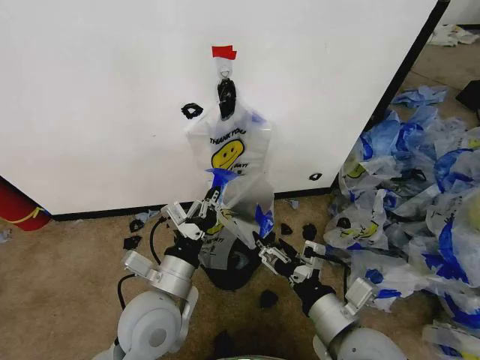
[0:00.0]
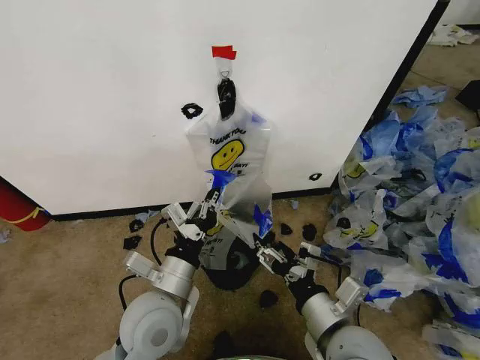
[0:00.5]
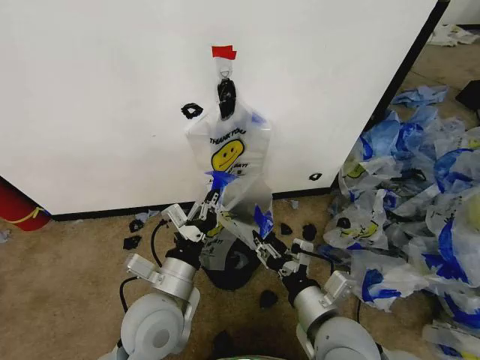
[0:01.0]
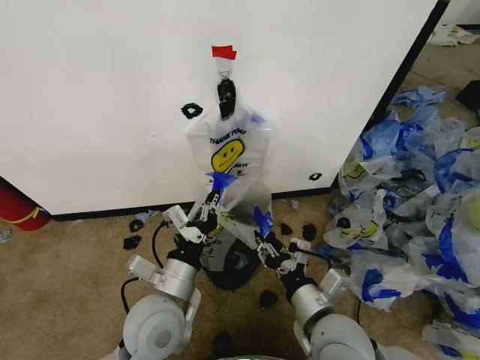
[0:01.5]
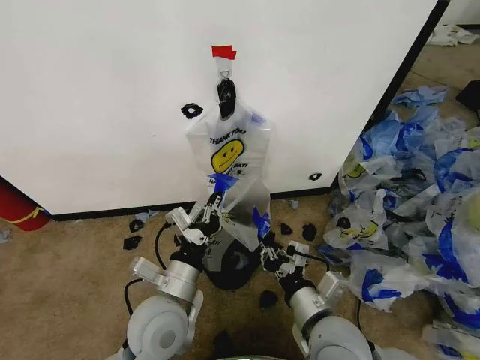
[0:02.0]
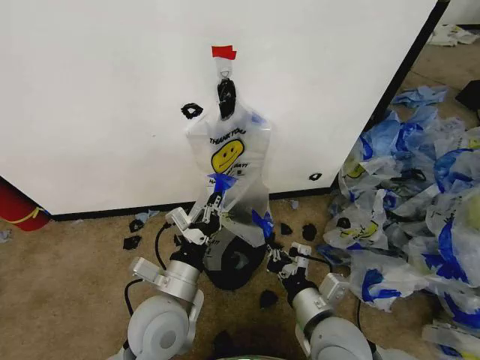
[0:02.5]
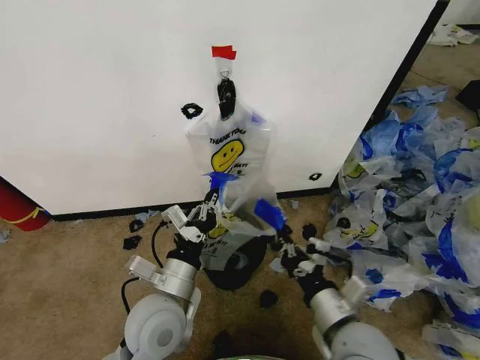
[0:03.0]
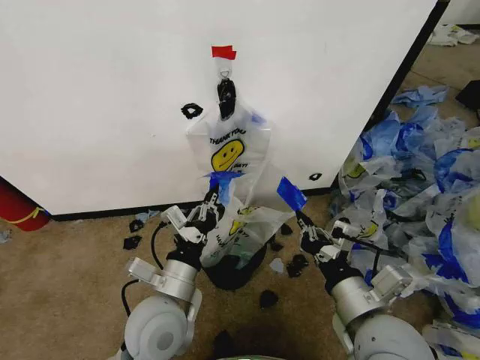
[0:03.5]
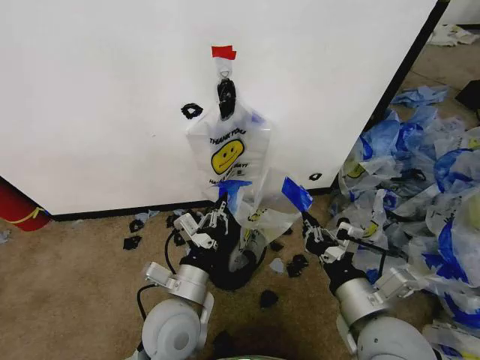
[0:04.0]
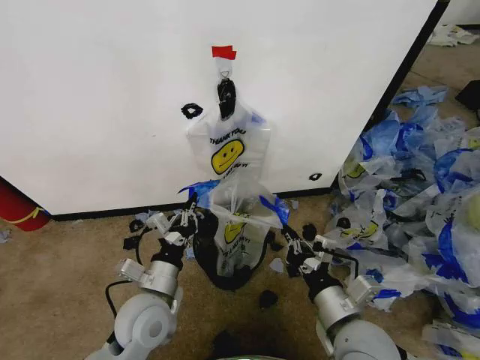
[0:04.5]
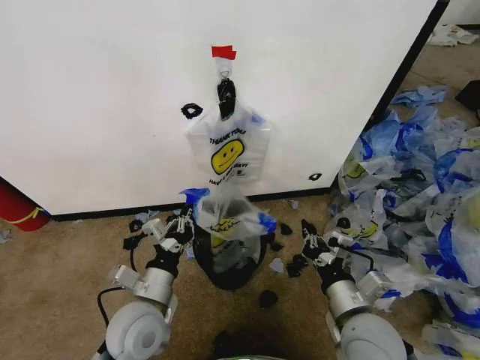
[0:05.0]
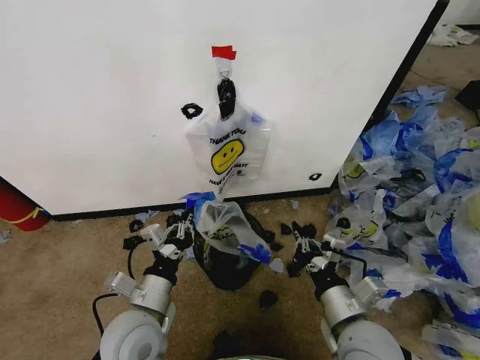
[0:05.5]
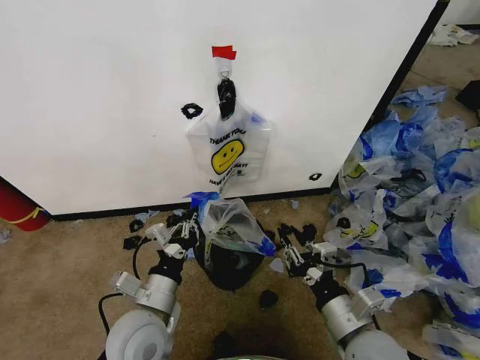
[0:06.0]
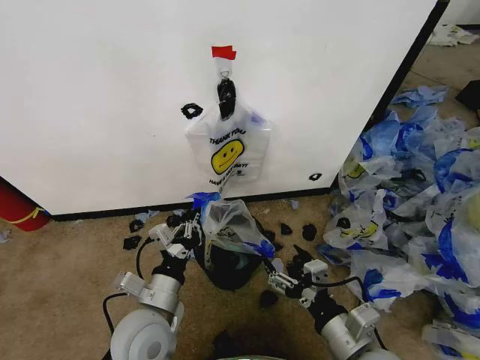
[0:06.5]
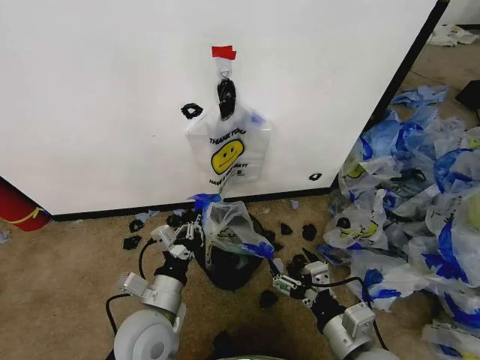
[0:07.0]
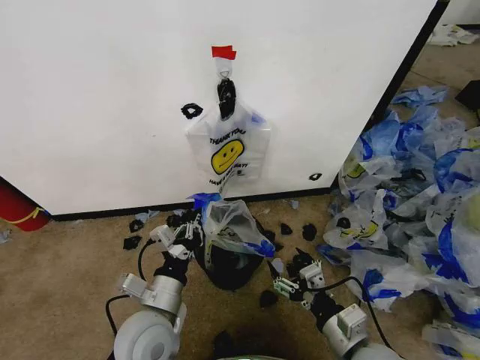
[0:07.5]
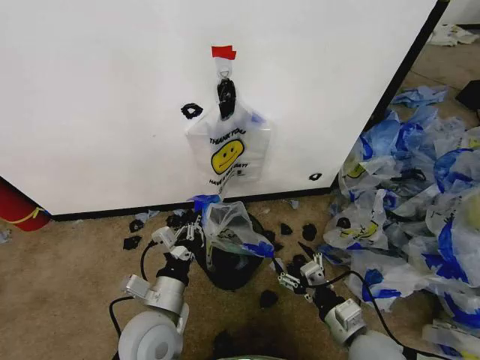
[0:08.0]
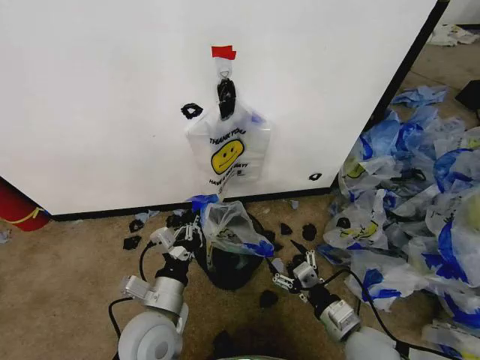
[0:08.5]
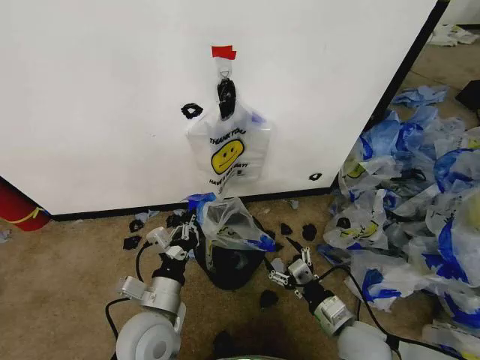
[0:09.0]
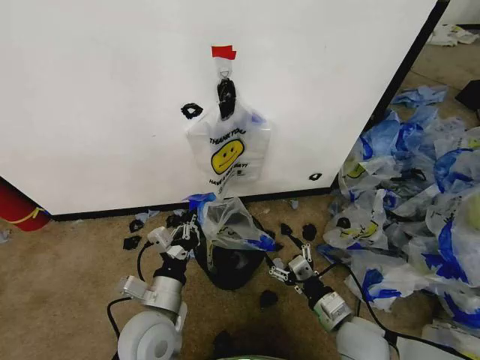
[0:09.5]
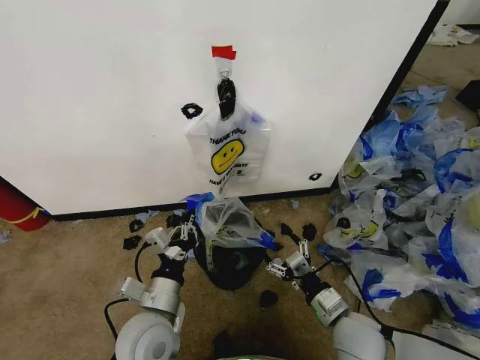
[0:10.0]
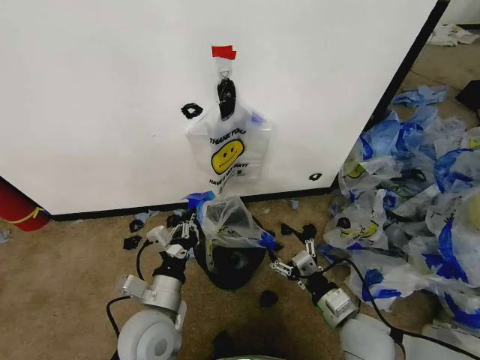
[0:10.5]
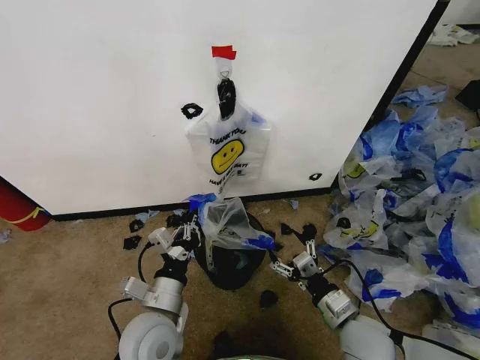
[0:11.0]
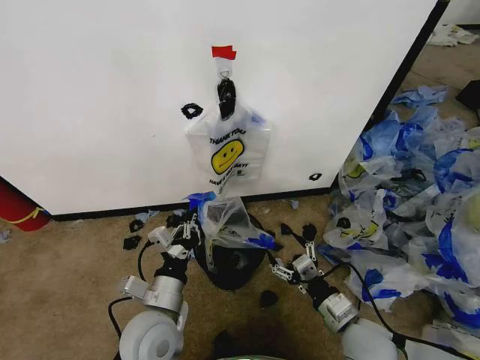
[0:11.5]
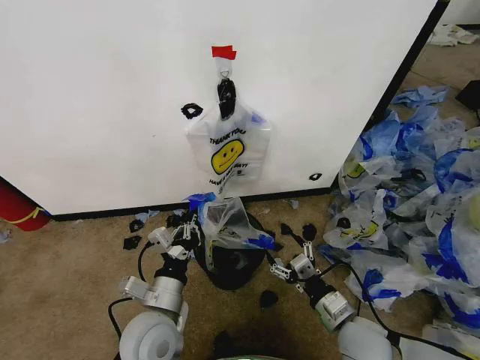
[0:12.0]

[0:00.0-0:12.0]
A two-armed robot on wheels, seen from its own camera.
Task of the whole recording: Pick up the garbage bag from the wall and place it over the trash bin.
0:00.0 to 0:02.0: The right gripper changes place by roughly 5 cm, and closes up.
0:02.0 to 0:04.0: The right gripper is displaced to the right and upward by roughly 10 cm.
0:04.0 to 0:06.0: The right gripper moves downward, approximately 5 cm; the left gripper is displaced to the left by some 5 cm.
0:06.0 to 0:08.0: The right gripper moves downward, roughly 5 cm, and opens up.
0:08.0 to 0:12.0: There are only small adjustments of the grippers.

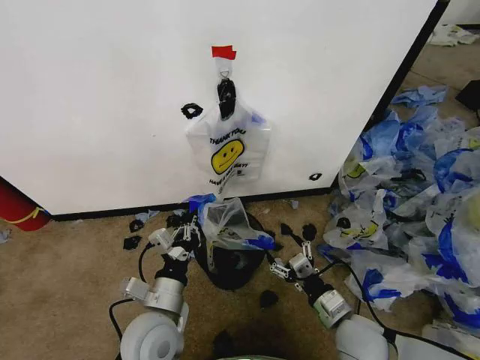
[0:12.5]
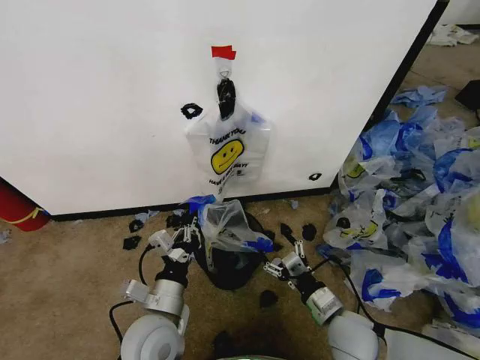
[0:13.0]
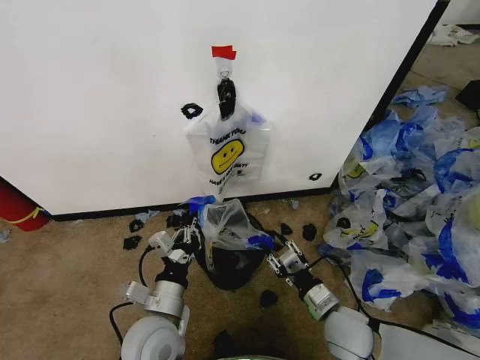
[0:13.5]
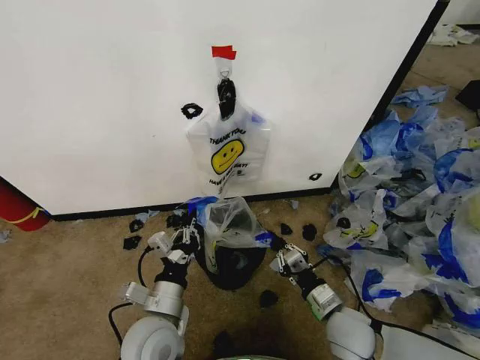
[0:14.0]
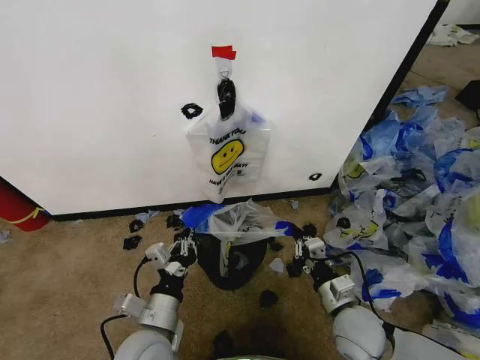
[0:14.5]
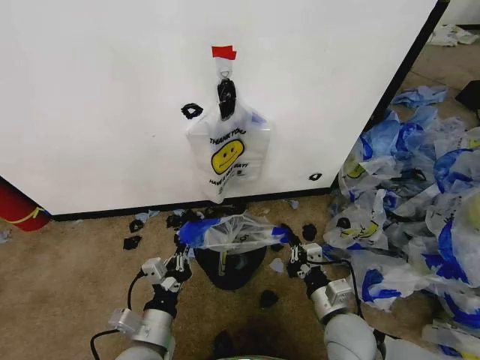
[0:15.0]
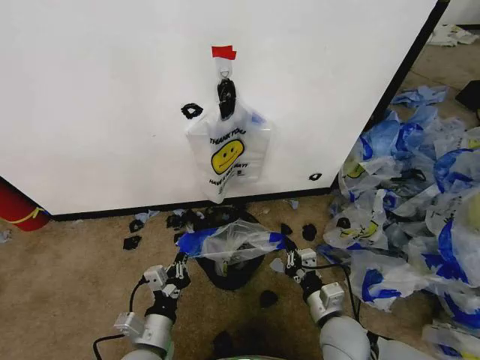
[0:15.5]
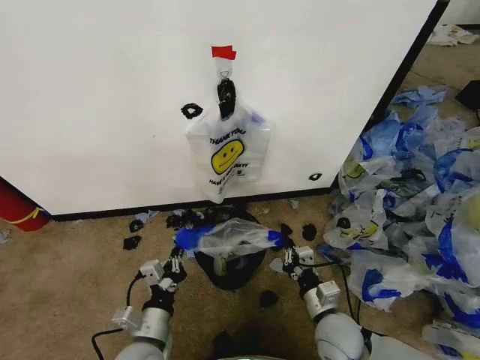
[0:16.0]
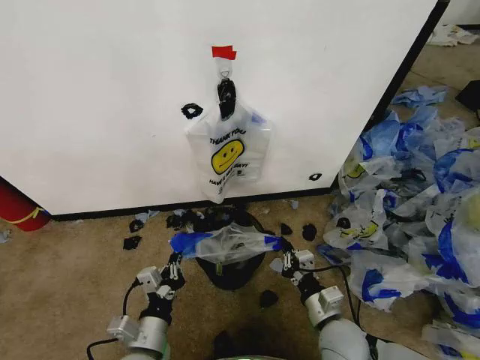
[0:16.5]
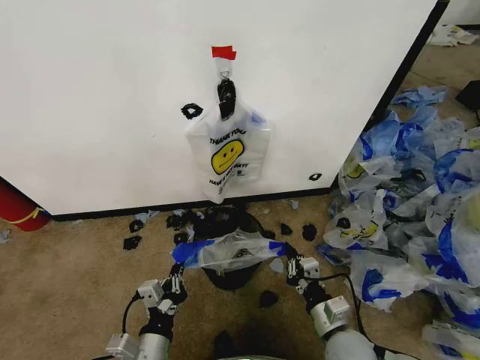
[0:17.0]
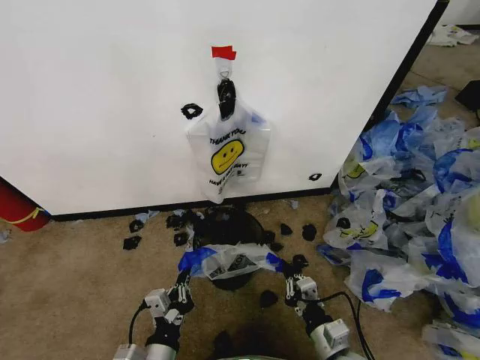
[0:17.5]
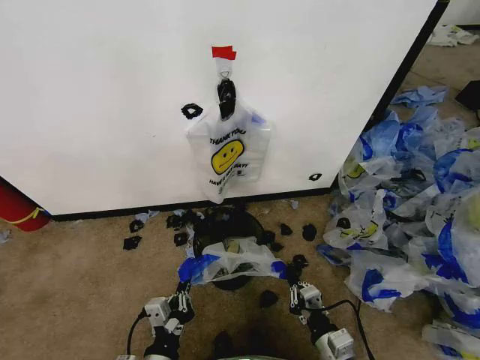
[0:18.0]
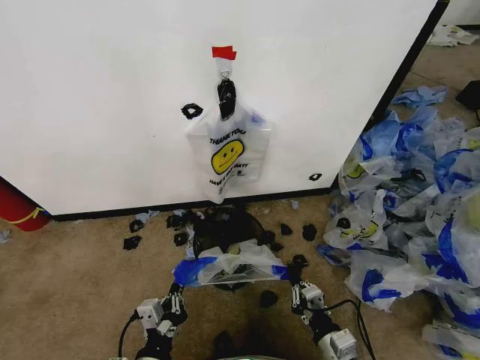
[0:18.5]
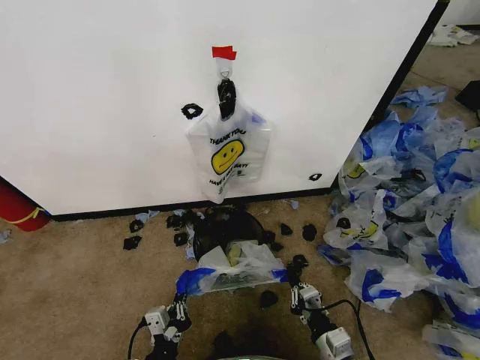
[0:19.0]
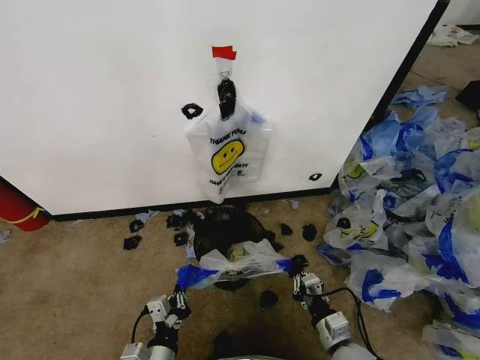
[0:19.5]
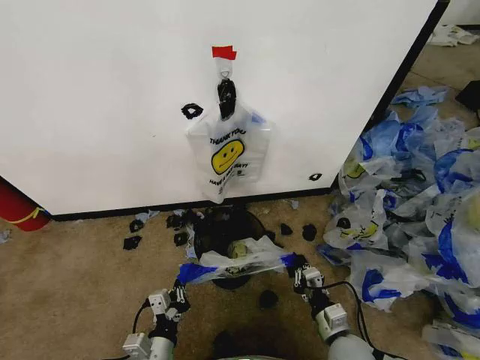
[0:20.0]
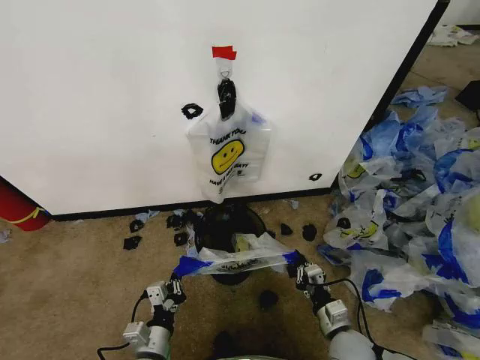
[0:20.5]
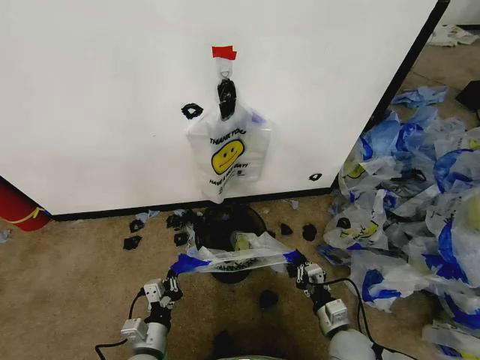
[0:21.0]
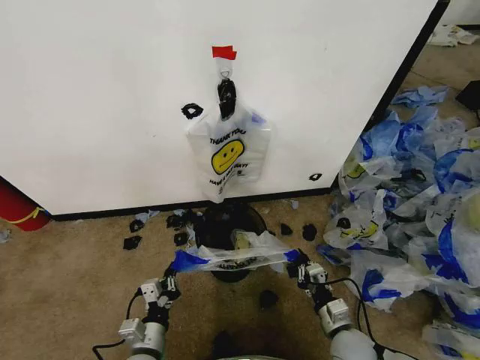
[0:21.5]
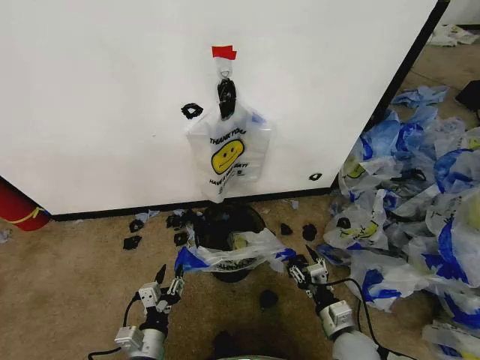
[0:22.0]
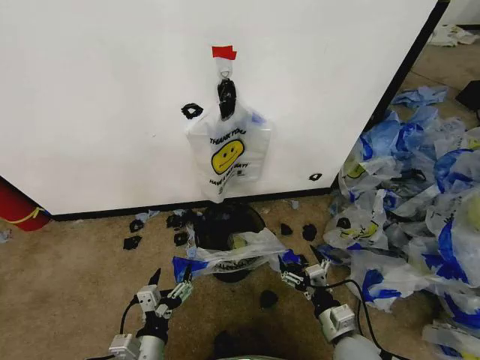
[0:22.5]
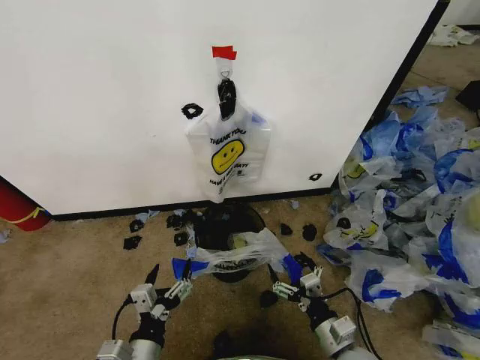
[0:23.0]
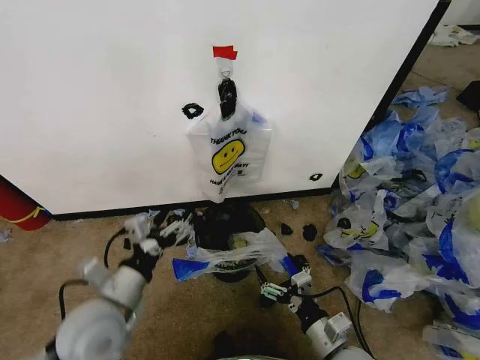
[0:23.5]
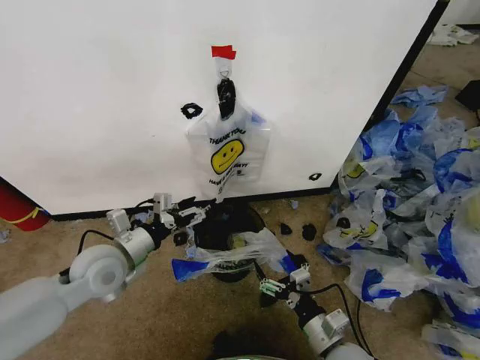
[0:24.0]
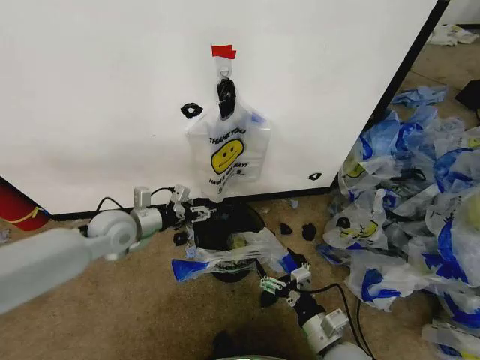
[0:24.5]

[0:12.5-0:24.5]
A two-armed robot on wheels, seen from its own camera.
Task of the whole recording: Pick up the garbage bag from the wall and place it over the trash bin.
0:12.5 to 0:14.5: The right gripper closes its fingers.
0:14.5 to 0:16.5: The left gripper moves roughly 5 cm.
0:16.5 to 0:18.5: Both grippers move backward, approximately 5 cm.
0:18.5 to 0:20.5: The right gripper shifts about 5 cm forward; the left gripper shifts roughly 10 cm downward and forward.
0:20.5 to 0:22.5: The left gripper shifts by approximately 5 cm, and opens up, while the right gripper opens up.
0:22.5 to 0:24.5: The left gripper goes about 30 cm forward and upward. The right gripper moves about 5 cm.

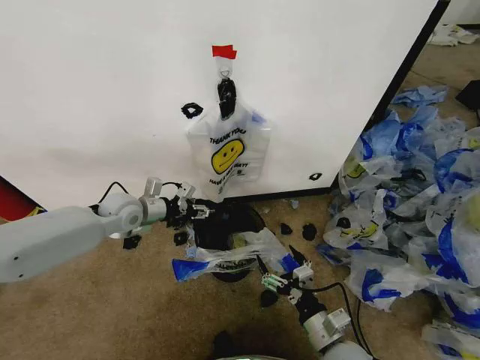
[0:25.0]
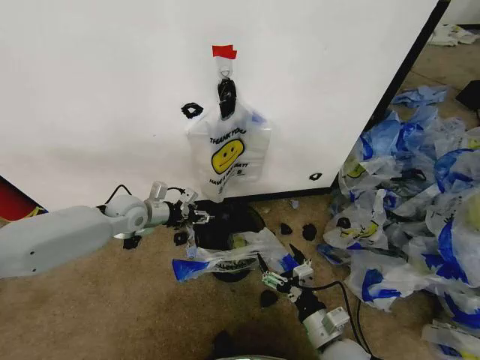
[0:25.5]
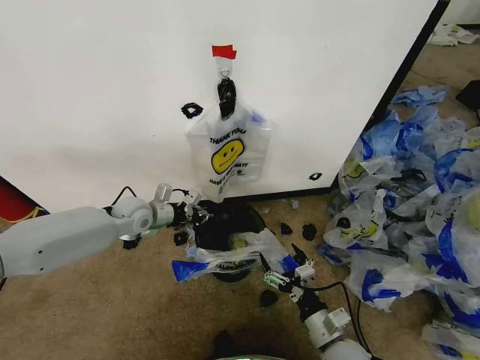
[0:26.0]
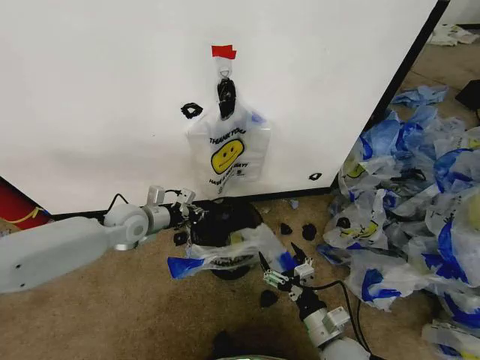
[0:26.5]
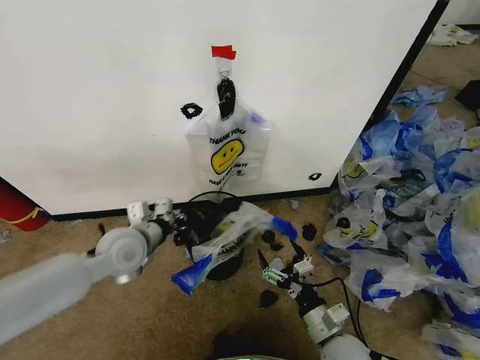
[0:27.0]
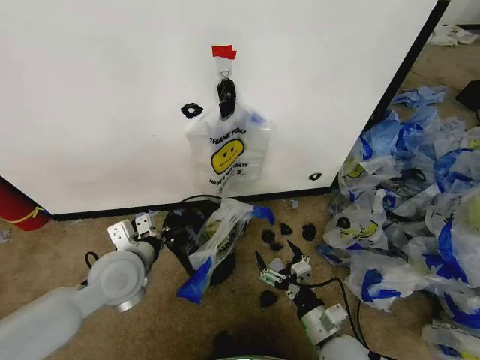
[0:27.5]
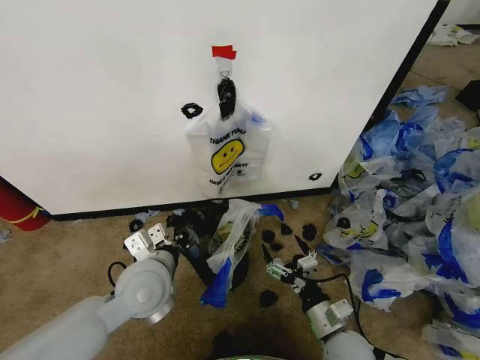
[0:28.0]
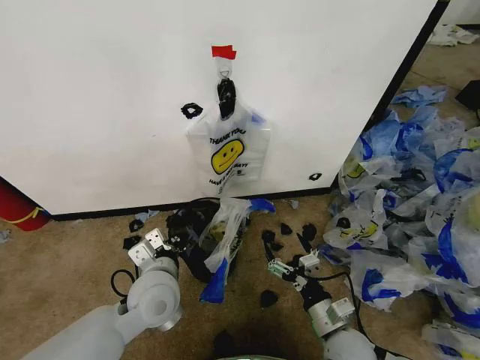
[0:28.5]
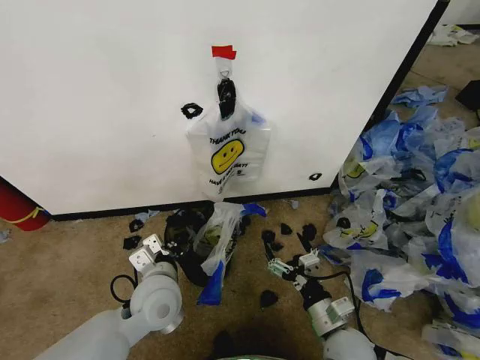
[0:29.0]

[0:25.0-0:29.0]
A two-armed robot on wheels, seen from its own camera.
Task of the whole recording: Pick up the garbage bag from the wall and place it over the trash bin.
0:25.0 to 0:27.0: The left gripper shifts approximately 10 cm backward, and closes its fingers.
0:27.0 to 0:29.0: The left gripper is displaced to the right, backward and downward by approximately 10 cm.
